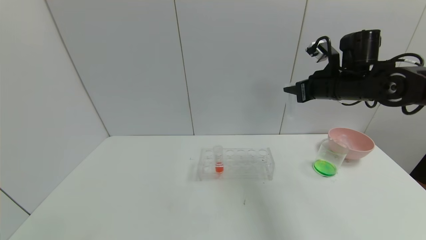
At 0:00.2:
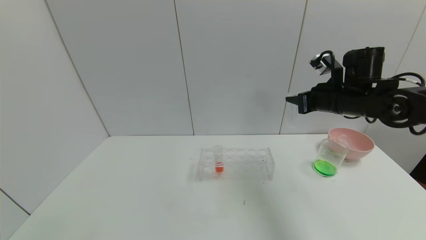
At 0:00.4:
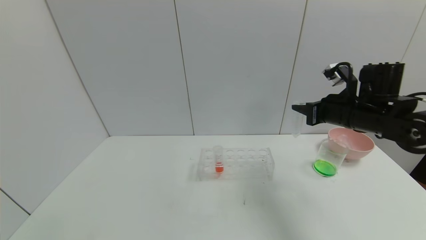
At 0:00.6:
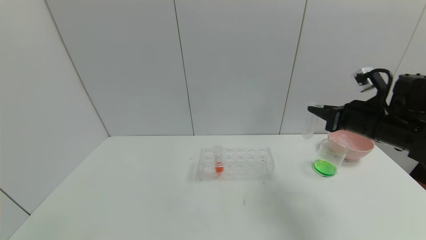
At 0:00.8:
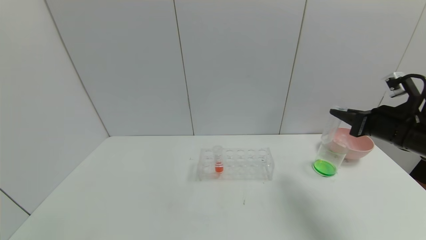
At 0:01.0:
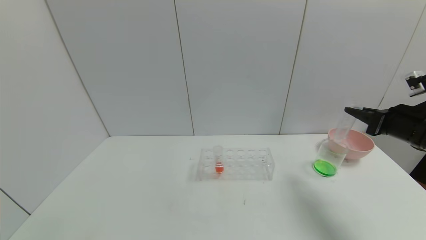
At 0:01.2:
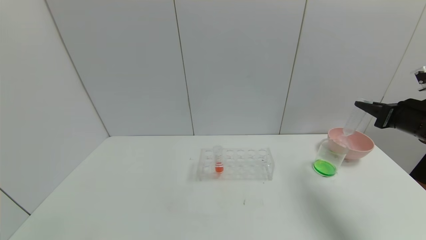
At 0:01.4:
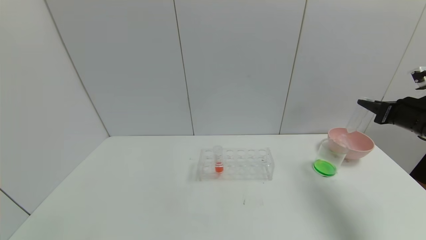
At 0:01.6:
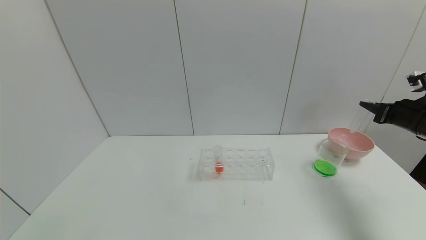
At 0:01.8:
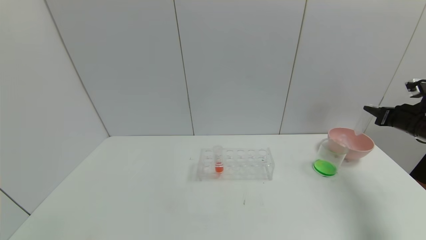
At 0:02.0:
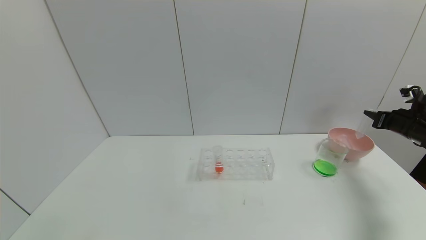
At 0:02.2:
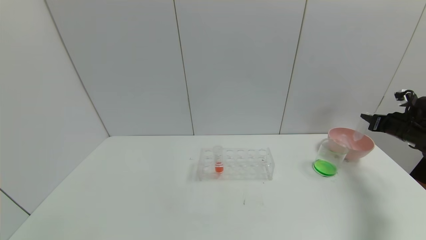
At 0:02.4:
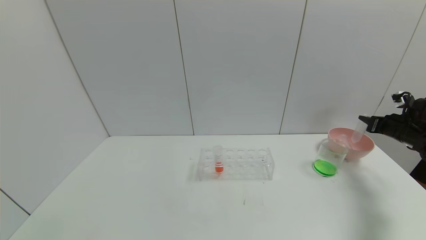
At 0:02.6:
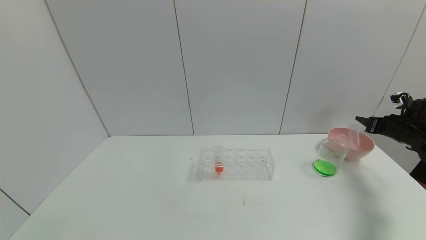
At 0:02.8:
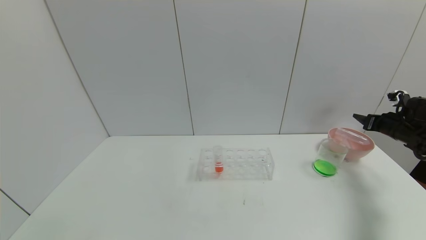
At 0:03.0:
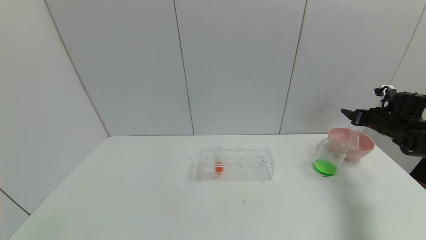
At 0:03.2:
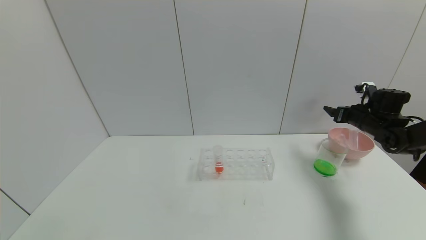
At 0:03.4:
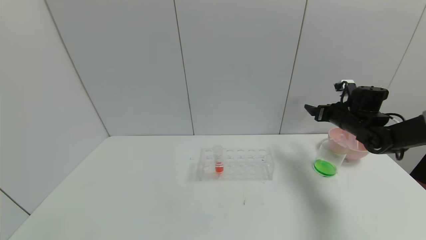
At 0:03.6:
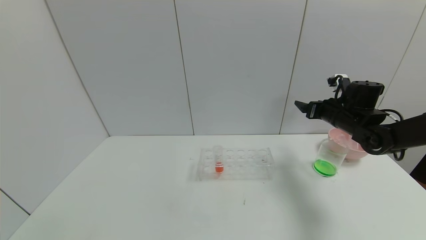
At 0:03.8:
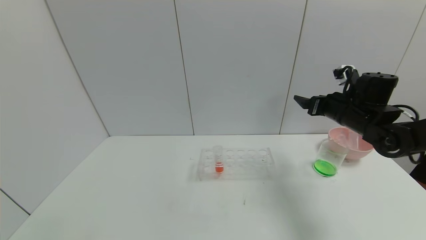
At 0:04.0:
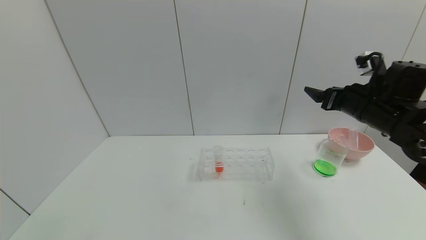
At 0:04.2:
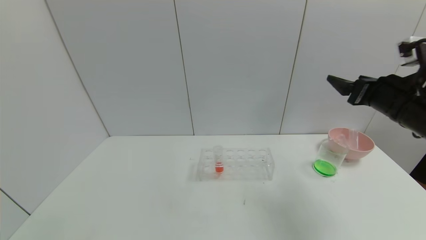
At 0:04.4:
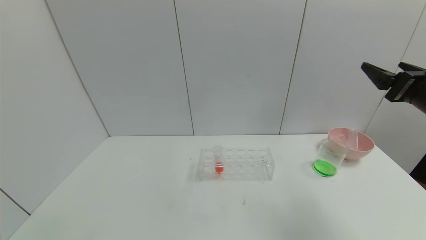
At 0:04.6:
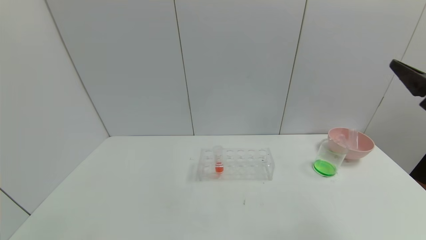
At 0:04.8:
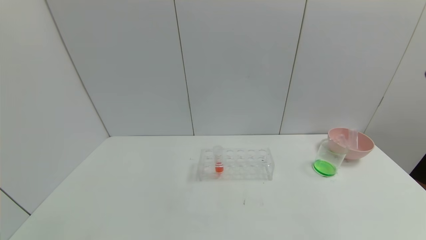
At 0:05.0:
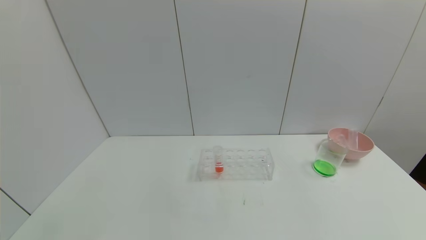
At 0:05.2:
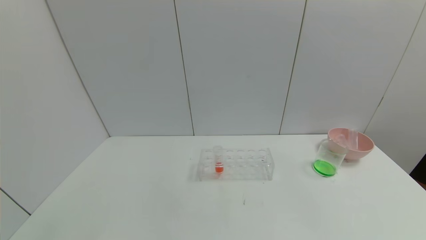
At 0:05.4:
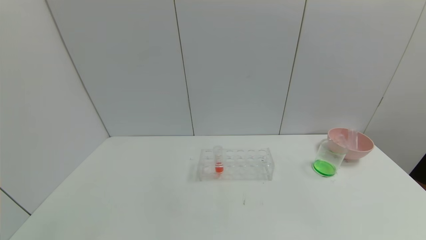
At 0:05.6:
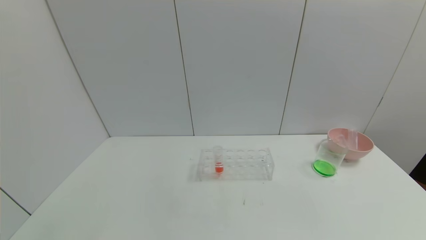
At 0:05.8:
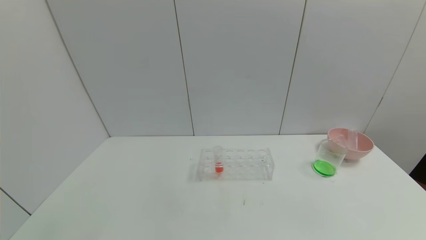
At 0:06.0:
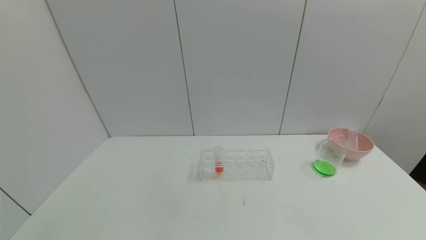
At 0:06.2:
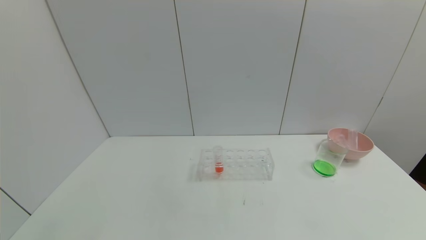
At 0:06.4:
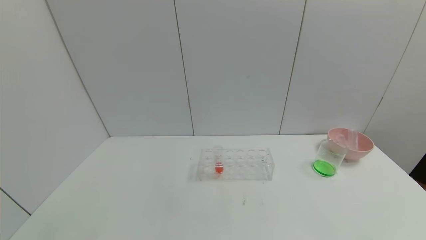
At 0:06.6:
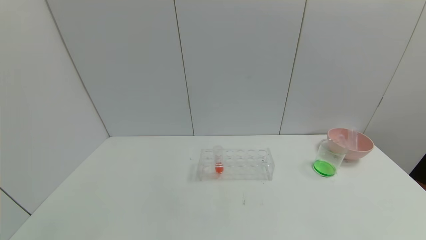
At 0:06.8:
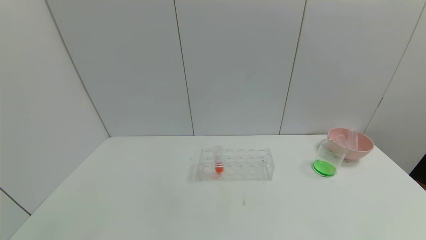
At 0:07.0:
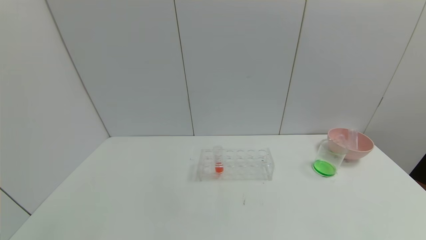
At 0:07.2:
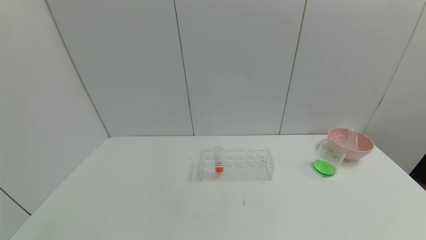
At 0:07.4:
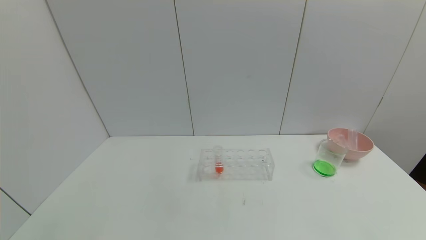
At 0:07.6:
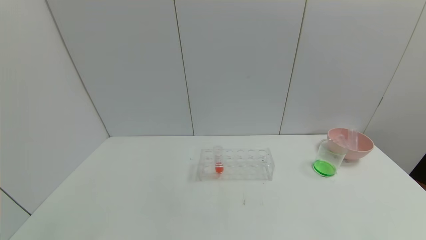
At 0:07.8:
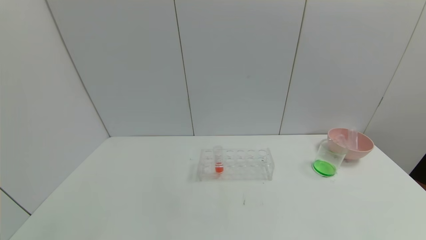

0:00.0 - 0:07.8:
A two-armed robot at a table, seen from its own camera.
Task of the whole recording: pick up the test tube with yellow pigment and the test tube with blue pigment by grippers and pour them into the beaker.
Step, 0:01.8 - 0:04.6: Place the test tube into the bowl with right gripper.
0:00.0 - 0:01.6: The right gripper goes roughly 20 cm to the right.
0:01.6 - 0:03.2: The right gripper heads forward and downward, covering approximately 10 cm, and opens up.
0:03.2 - 0:04.6: The right gripper shifts approximately 30 cm backward and upward.
0:04.6 - 0:06.2: The right gripper travels backward and downward by some 30 cm.
